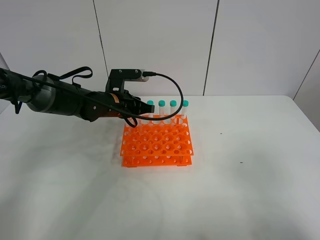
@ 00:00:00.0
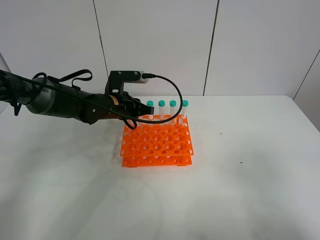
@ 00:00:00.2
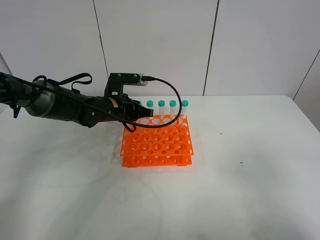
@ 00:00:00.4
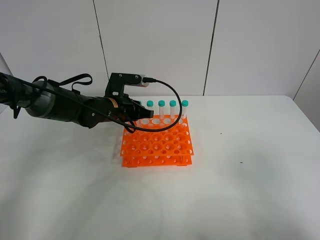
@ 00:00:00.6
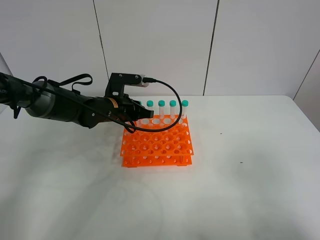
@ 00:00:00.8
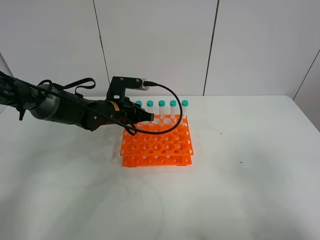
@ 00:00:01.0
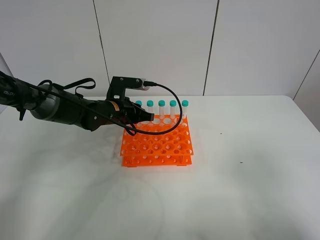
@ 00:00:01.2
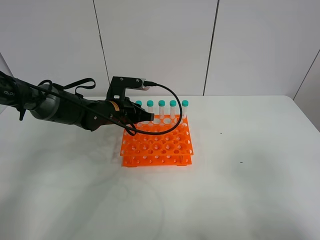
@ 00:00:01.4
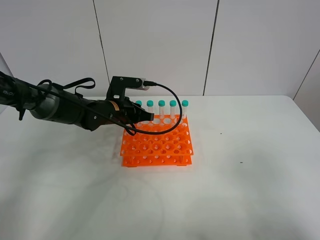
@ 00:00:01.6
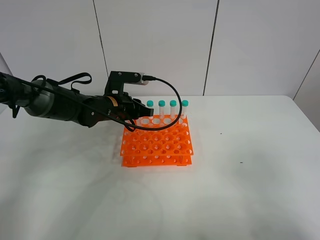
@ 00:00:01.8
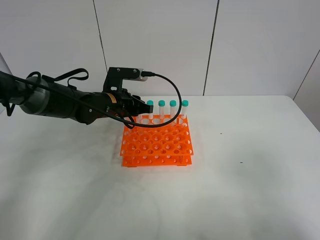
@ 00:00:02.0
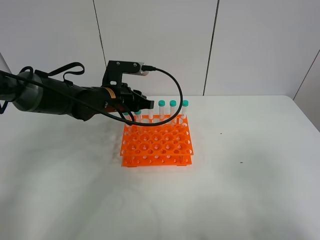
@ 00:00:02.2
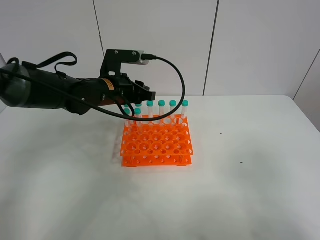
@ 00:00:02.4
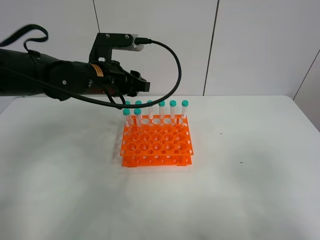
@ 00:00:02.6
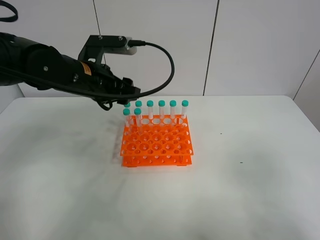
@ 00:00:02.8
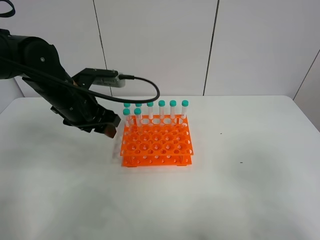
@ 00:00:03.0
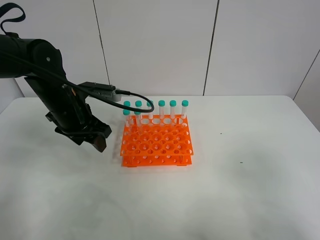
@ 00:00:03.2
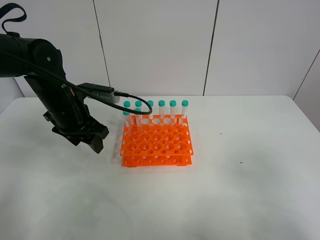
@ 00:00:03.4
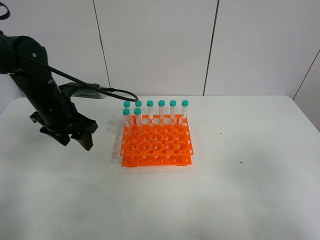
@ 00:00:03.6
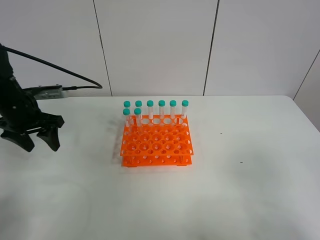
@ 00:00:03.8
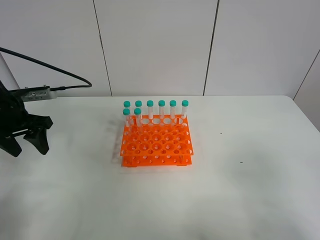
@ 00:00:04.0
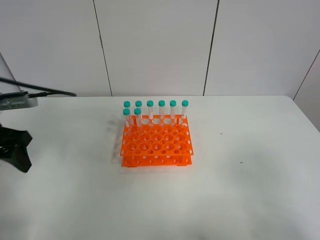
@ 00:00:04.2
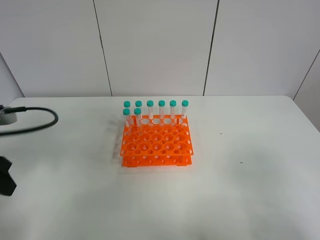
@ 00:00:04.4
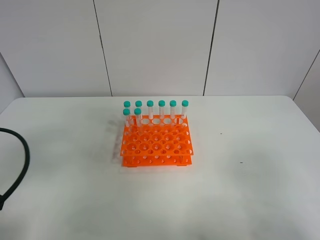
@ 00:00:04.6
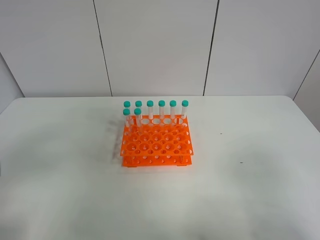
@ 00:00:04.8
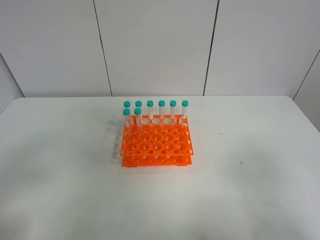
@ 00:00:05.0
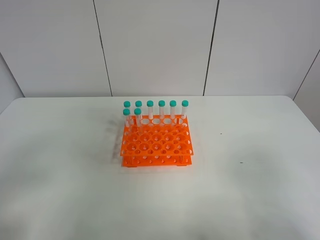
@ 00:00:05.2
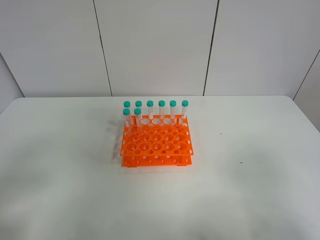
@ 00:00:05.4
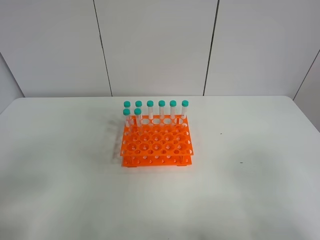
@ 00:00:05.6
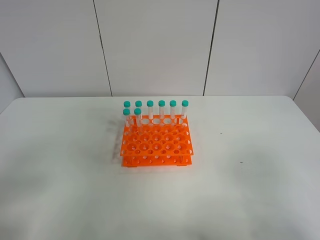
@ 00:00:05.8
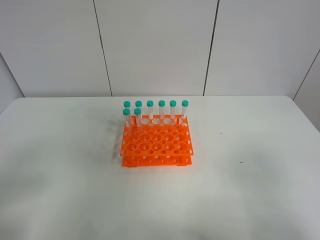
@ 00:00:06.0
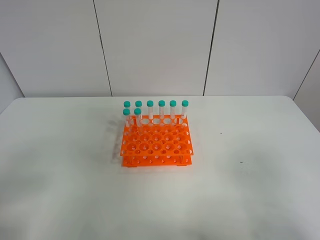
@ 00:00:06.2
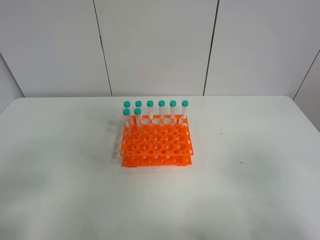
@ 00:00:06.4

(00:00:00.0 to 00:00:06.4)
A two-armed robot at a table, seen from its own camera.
Task of the whole recording: Put the test tube on the table back onto the test tube rack.
Step, 00:00:00.0 - 00:00:03.0: Place the test tube on the test tube rack with the left gripper.
00:00:00.0 - 00:00:01.6: There are only small adjustments of the grippers.
00:00:01.6 - 00:00:03.2: The left gripper is displaced to the left, upward and backward by some 10 cm, and opens.
00:00:03.2 - 00:00:04.8: The left gripper heads backward and to the left, covering approximately 30 cm.
